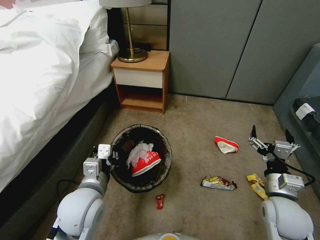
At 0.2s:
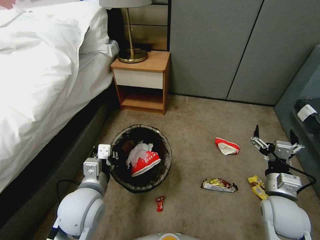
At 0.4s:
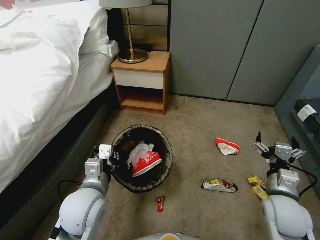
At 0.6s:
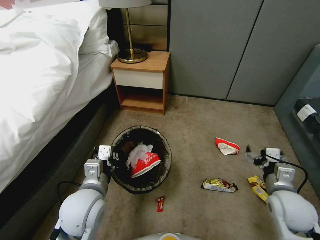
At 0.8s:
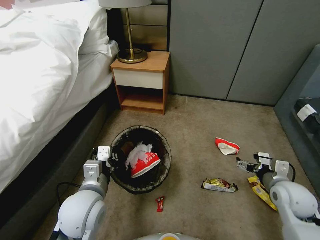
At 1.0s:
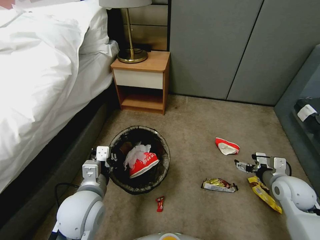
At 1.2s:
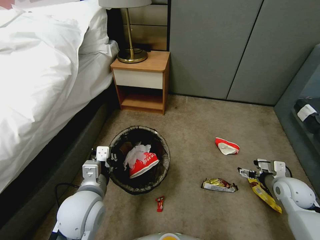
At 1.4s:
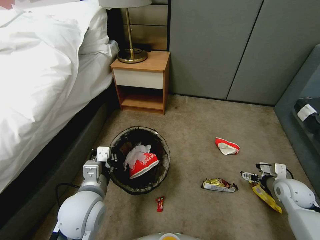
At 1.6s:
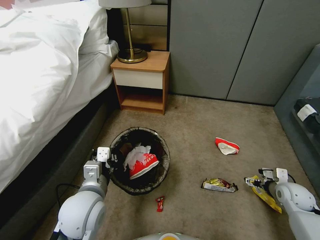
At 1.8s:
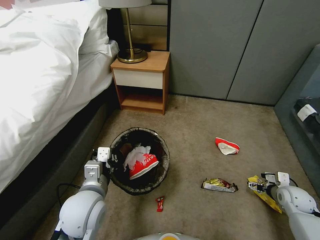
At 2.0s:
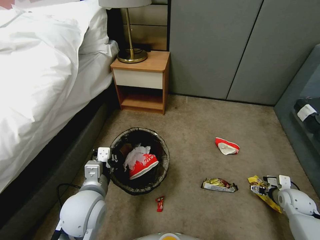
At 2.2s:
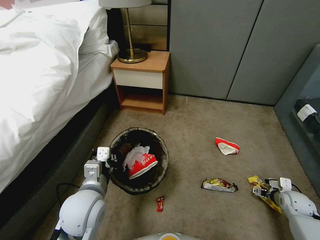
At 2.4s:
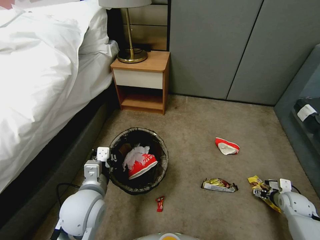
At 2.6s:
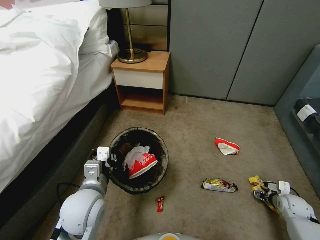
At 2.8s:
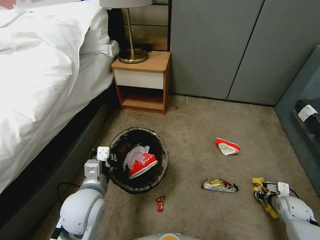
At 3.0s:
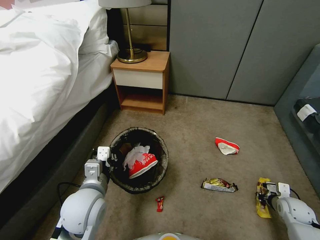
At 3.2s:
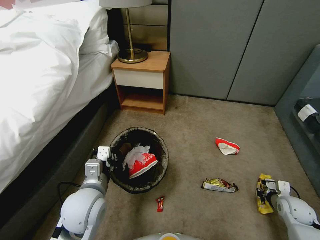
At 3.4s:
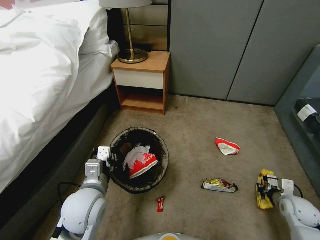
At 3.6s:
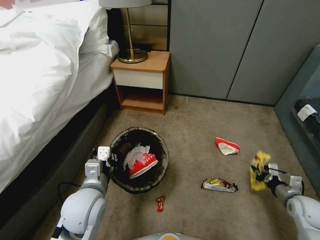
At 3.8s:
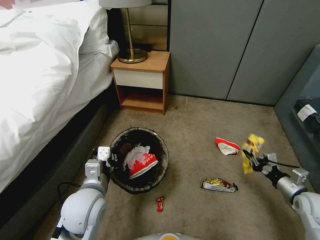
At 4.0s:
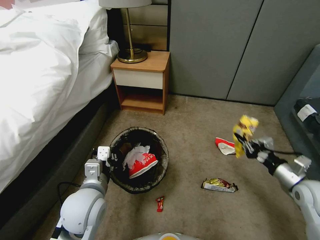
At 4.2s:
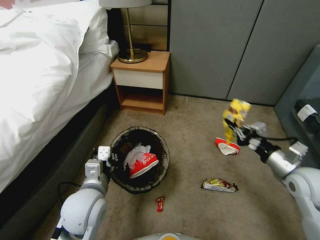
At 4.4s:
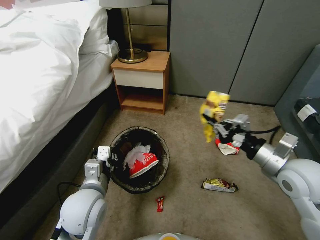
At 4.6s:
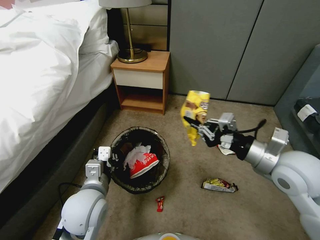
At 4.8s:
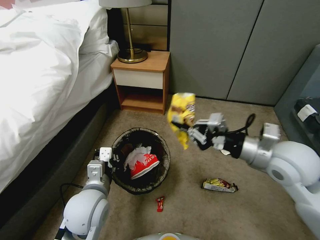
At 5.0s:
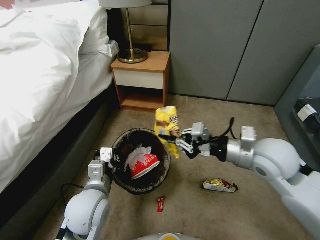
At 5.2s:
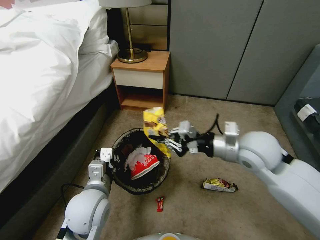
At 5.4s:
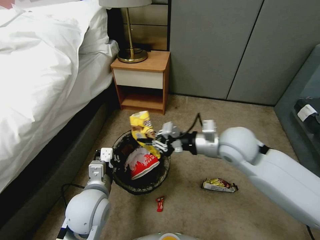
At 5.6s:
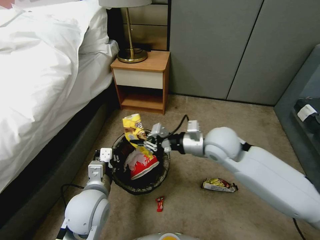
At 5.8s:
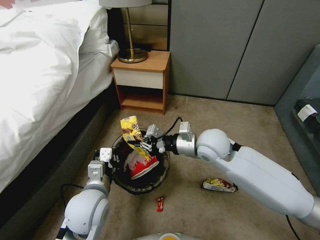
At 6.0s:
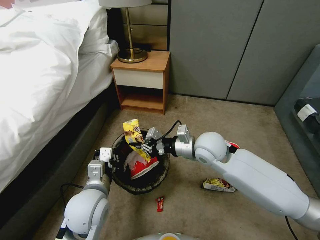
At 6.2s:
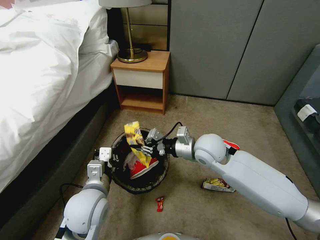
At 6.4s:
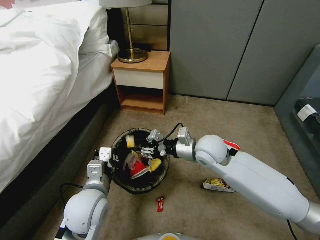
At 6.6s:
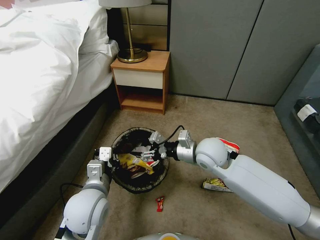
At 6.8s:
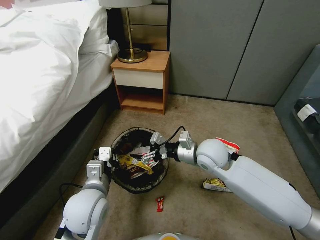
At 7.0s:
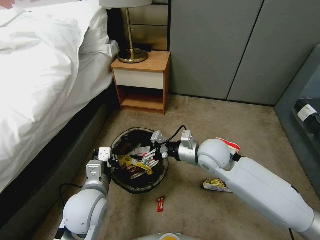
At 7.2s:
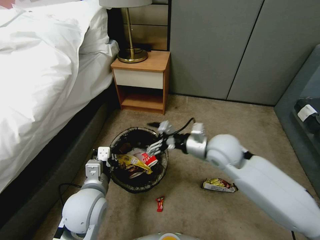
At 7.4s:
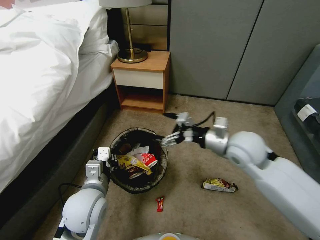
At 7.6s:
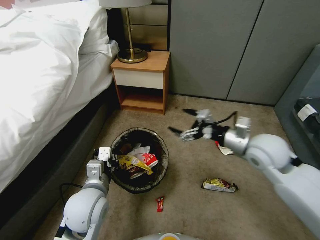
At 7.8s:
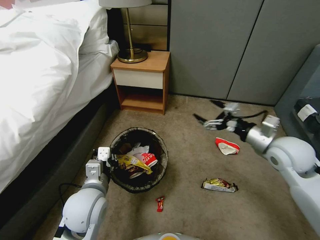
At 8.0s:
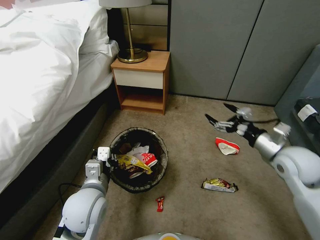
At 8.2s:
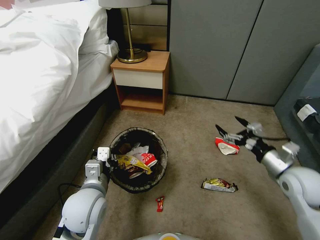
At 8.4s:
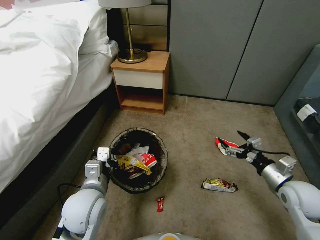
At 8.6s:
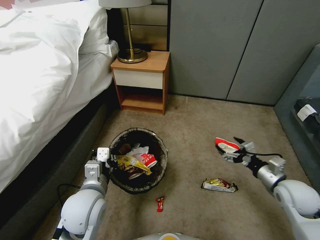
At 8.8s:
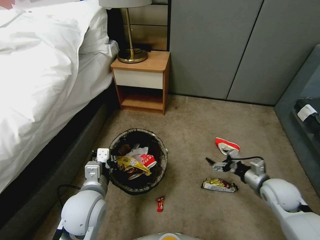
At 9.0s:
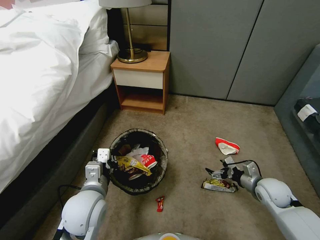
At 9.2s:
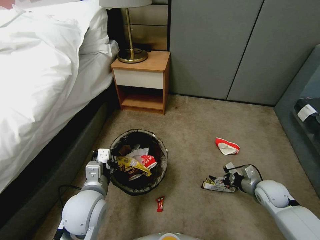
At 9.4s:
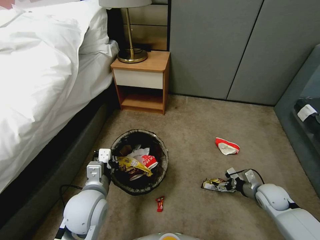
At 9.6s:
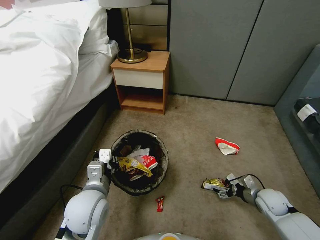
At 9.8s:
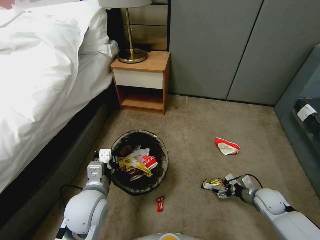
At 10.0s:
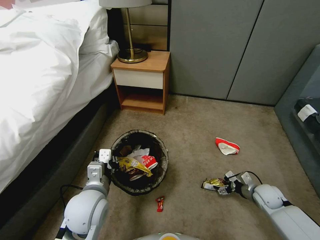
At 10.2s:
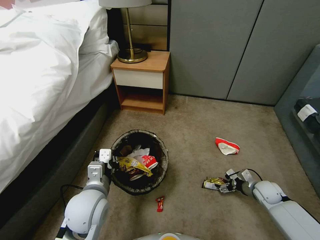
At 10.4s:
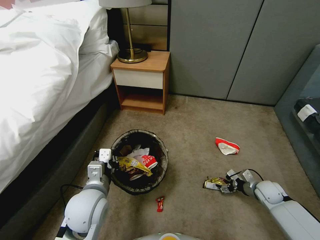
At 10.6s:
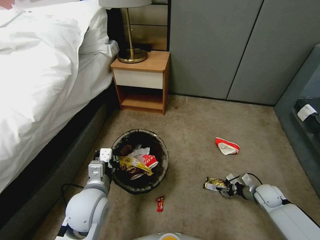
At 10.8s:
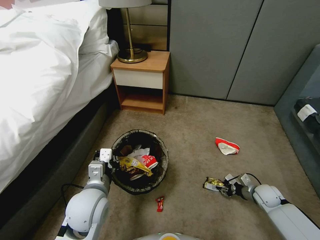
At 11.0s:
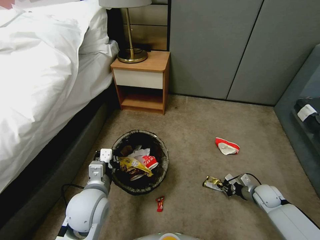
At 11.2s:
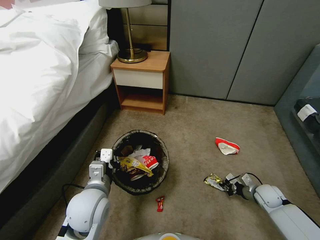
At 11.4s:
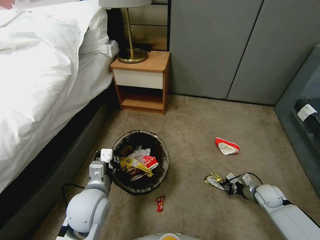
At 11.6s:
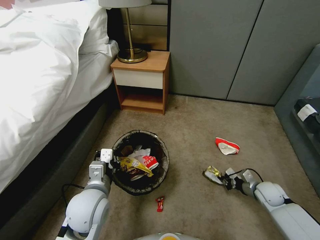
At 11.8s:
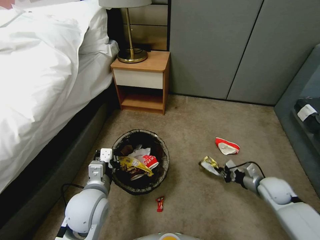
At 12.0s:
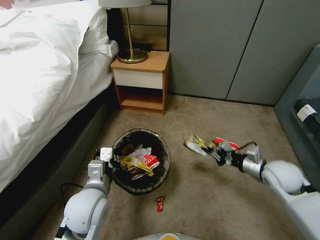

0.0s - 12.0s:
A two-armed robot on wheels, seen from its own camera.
Task of the whole recording: Pick up the trash bin, then pick up the garbage from the floor and place it into the trash bin.
0.0s - 1.6s: The right gripper moves to the right, downward and forward, roughly 20 cm.
1.6s - 3.0s: The right gripper shifts roughly 5 cm downward, and closes its fingers.
3.0s - 4.4s: The right gripper is displaced upward and to the left by about 35 cm.
4.4s - 6.0s: The right gripper moves to the left and forward, about 20 cm.
6.0s - 7.6s: The right gripper moves to the right, about 15 cm, and opens up.
7.6s - 9.0s: The right gripper goes roughly 20 cm downward and to the right.
9.0s - 10.4s: The right gripper shifts some 10 cm downward and to the right.
10.4s - 12.0s: The right gripper travels upward by approximately 15 cm, and closes up.

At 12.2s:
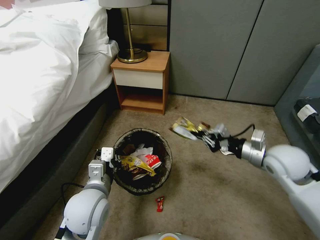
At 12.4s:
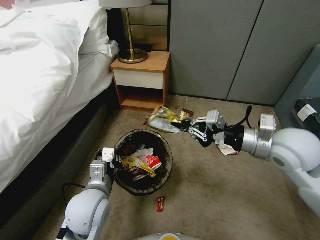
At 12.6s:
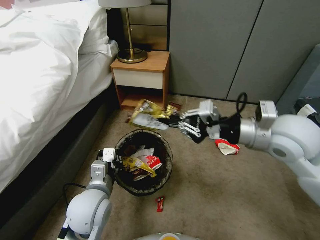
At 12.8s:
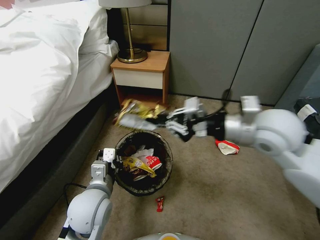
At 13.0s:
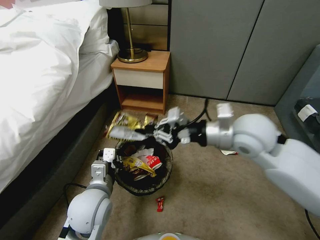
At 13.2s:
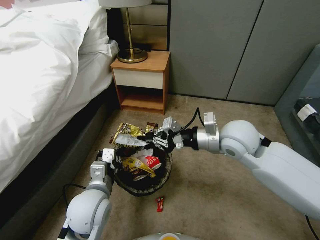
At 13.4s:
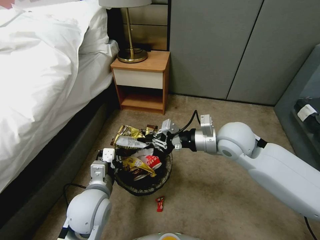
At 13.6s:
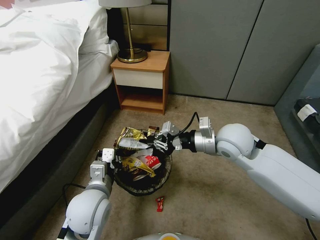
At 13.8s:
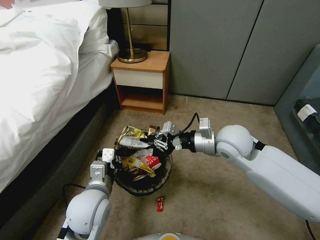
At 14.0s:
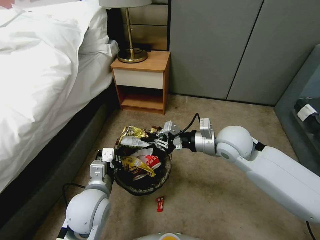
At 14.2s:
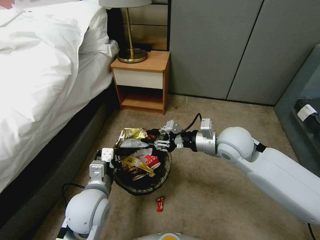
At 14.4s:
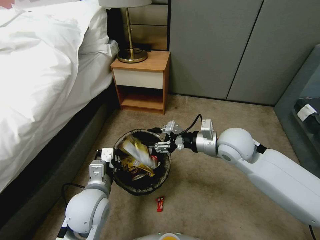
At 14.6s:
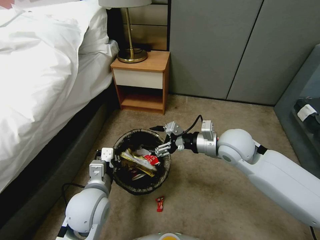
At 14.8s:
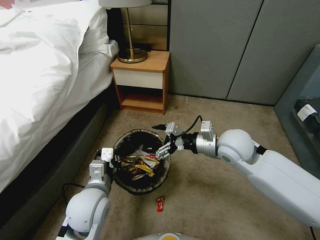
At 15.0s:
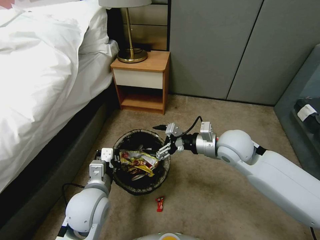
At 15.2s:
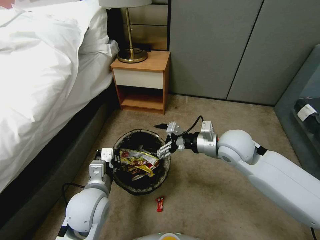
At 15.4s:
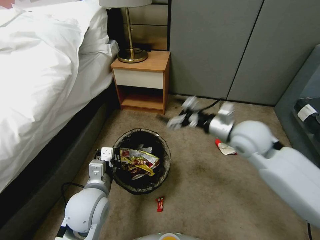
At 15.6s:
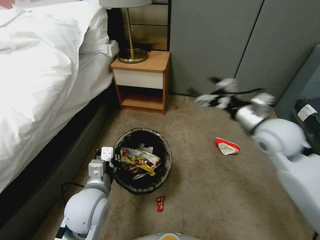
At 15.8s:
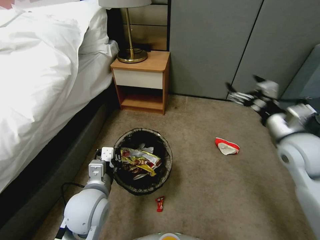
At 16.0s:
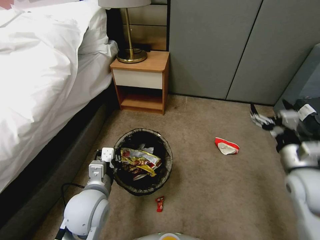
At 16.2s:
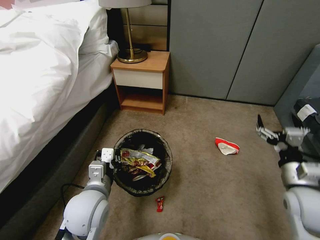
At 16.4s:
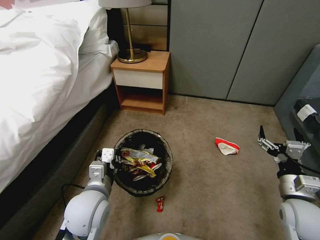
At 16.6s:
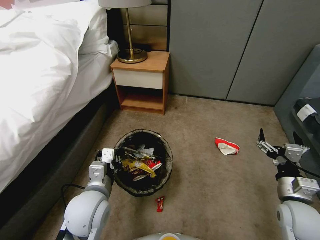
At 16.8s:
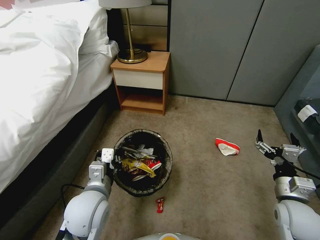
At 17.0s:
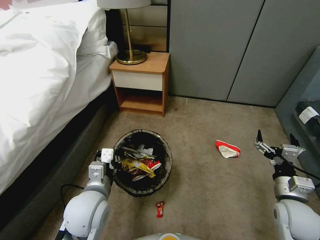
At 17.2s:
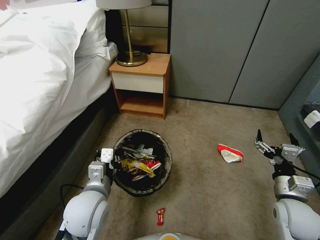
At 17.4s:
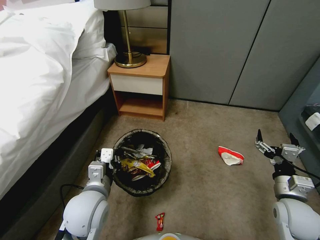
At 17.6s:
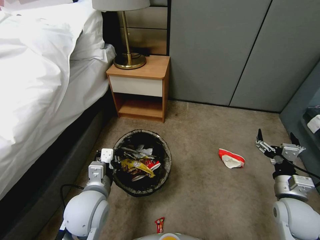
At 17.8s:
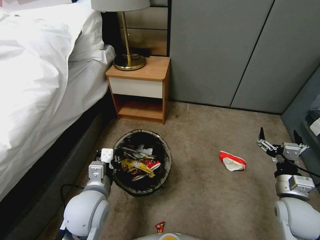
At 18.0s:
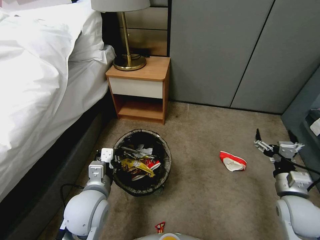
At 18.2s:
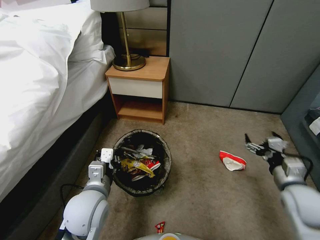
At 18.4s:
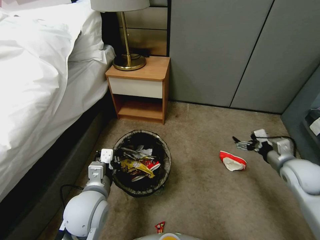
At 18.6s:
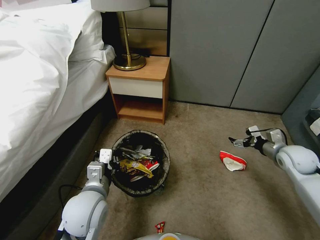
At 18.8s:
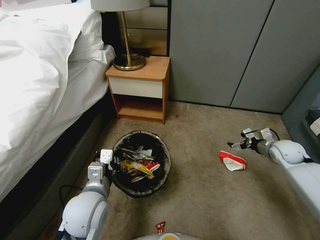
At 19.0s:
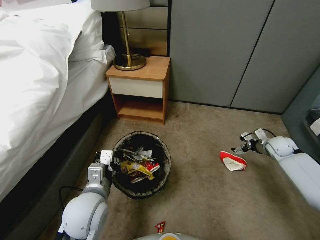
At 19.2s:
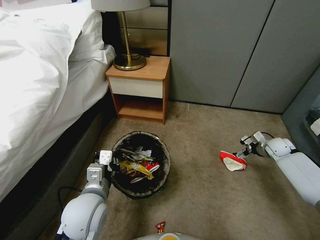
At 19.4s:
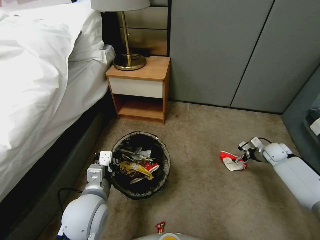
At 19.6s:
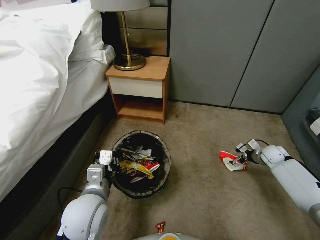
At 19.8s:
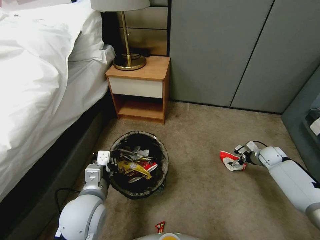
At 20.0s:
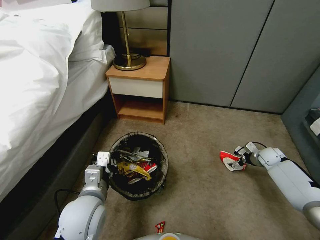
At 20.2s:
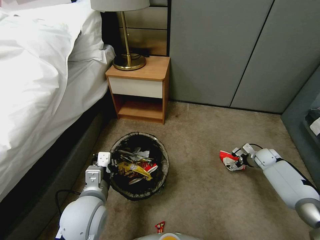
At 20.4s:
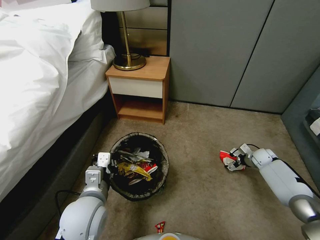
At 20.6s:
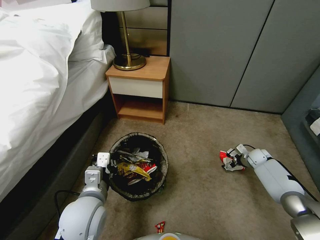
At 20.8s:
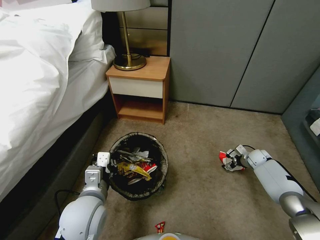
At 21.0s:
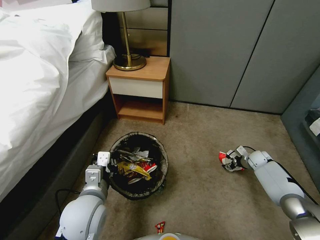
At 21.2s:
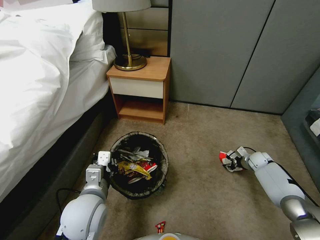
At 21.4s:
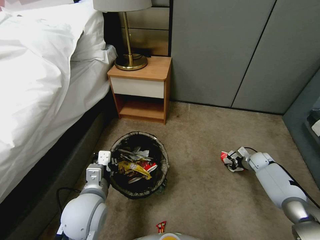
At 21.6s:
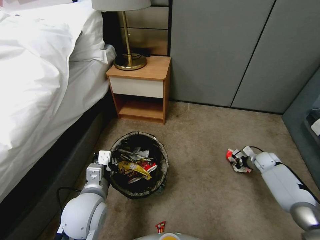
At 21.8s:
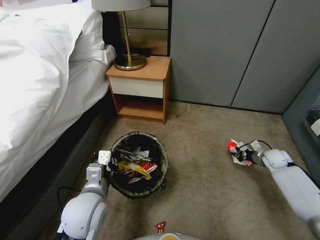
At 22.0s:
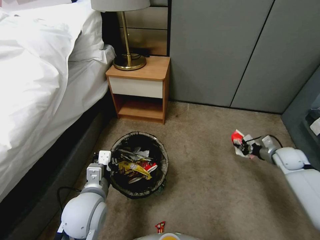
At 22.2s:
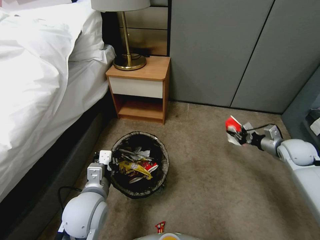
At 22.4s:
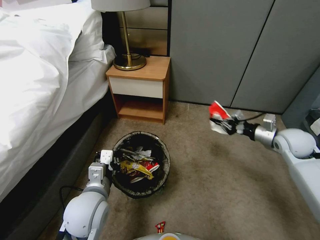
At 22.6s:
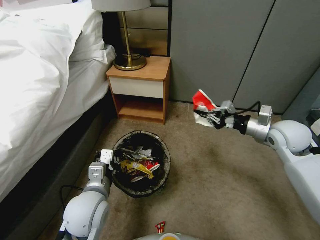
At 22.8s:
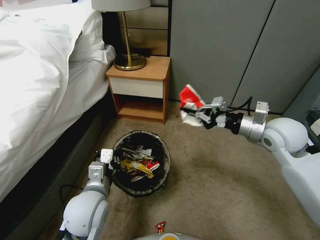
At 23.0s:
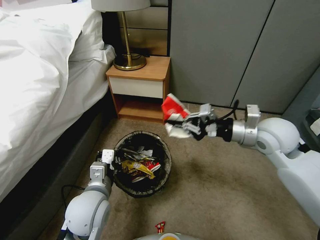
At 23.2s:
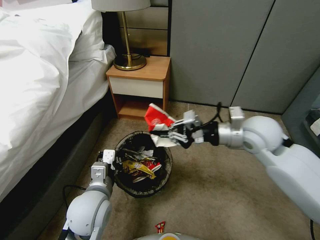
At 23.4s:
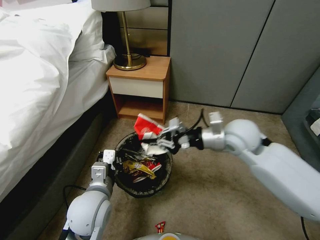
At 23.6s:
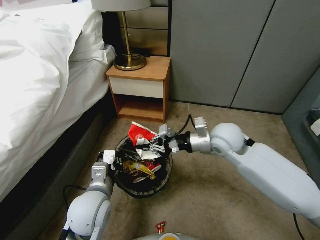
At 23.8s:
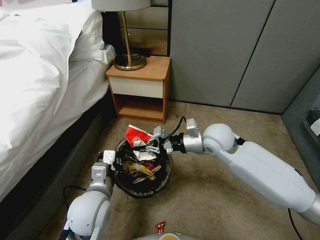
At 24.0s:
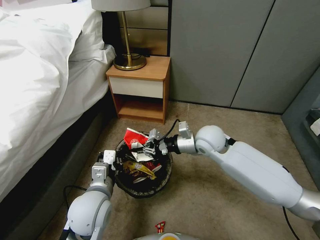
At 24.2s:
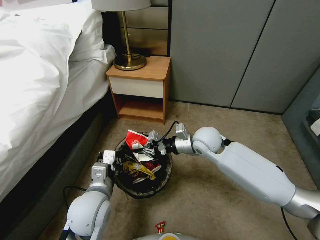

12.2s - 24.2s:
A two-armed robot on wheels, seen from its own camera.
Task of the whole recording: Pick up the trash bin, then pick up the garbage from the floor and place it into the trash bin.
12.2s - 13.8s: The right gripper goes approximately 15 cm to the left.
13.8s - 15.2s: The right gripper opens.
15.2s - 16.6s: The right gripper heads backward, to the right and downward, covering approximately 25 cm.
16.6s - 18.2s: The right gripper shifts roughly 5 cm forward.
18.2s - 19.8s: The right gripper goes some 25 cm forward, downward and to the right.
19.8s - 21.2s: The right gripper goes approximately 5 cm downward, and closes its fingers.
21.2s - 22.6s: The right gripper travels upward by roughly 30 cm, and closes its fingers.
22.6s - 24.2s: The right gripper moves to the left, some 20 cm.
